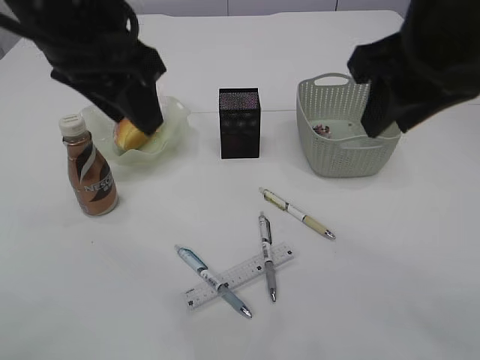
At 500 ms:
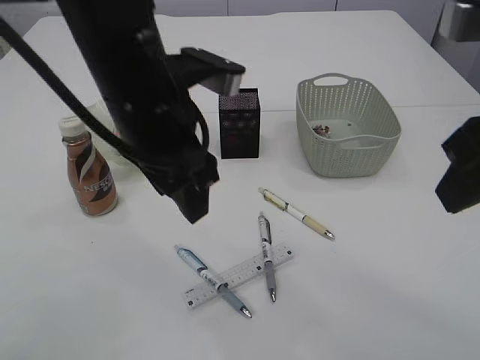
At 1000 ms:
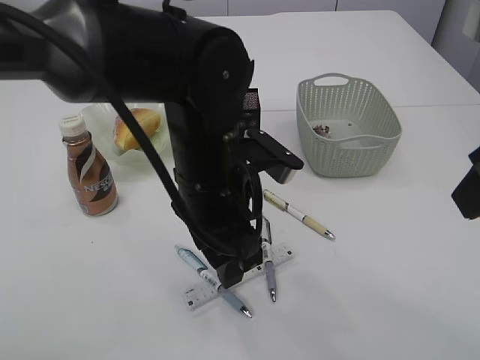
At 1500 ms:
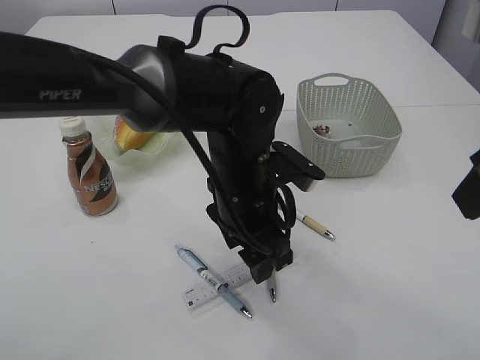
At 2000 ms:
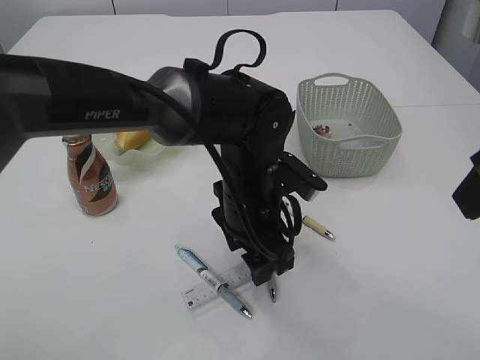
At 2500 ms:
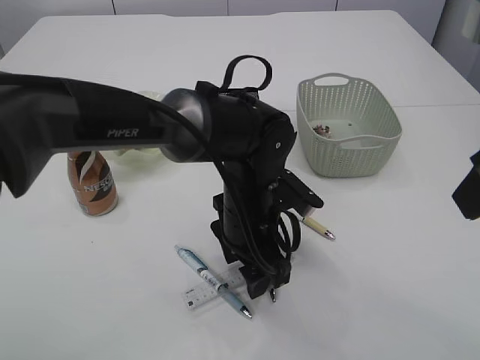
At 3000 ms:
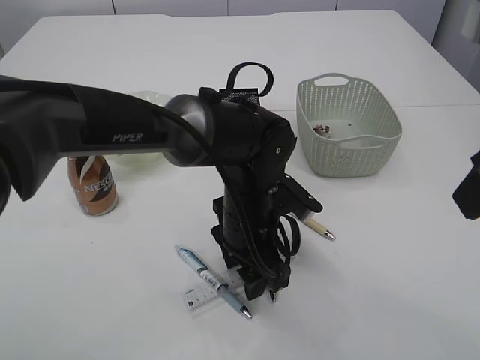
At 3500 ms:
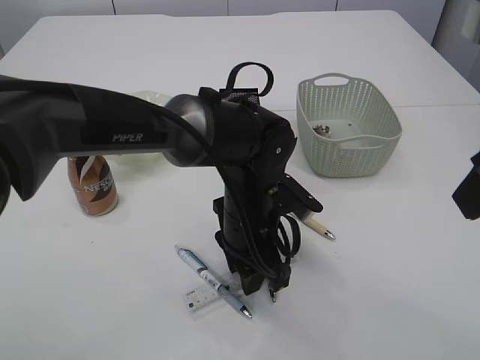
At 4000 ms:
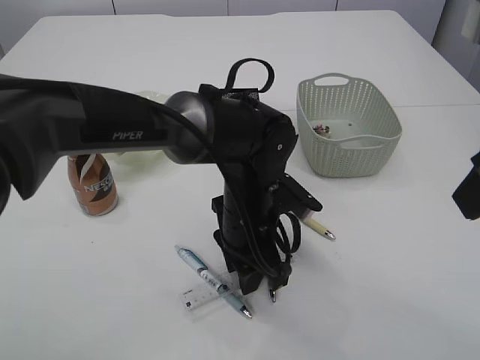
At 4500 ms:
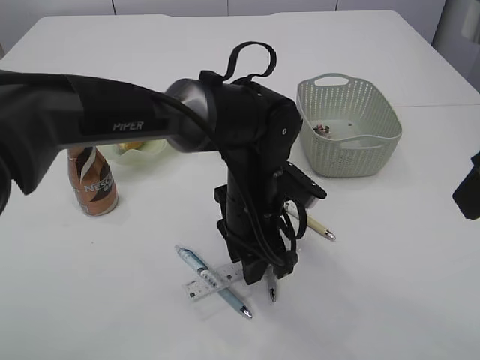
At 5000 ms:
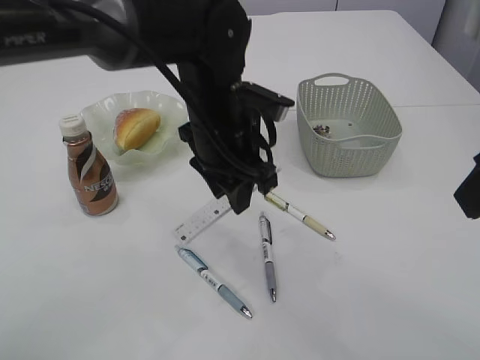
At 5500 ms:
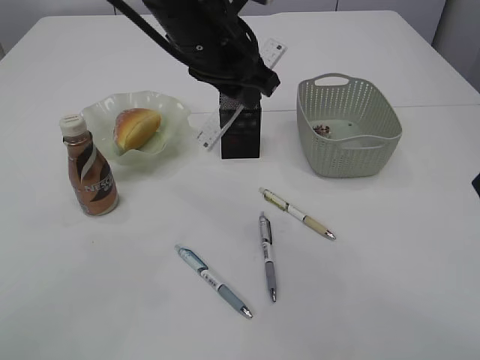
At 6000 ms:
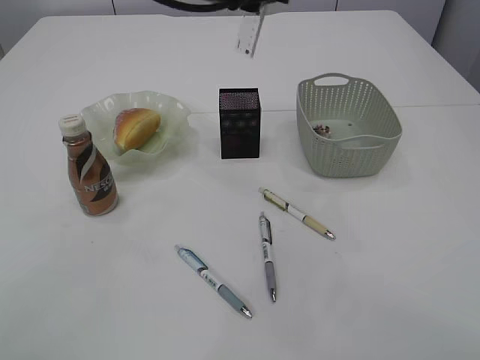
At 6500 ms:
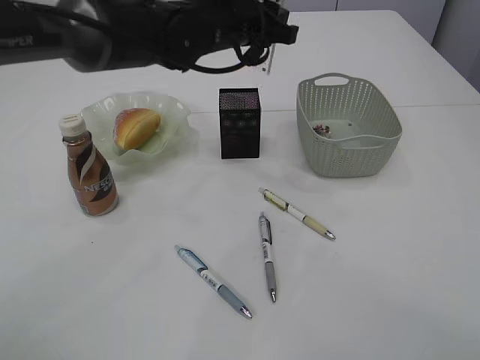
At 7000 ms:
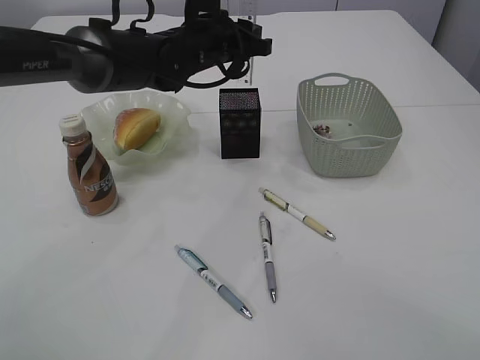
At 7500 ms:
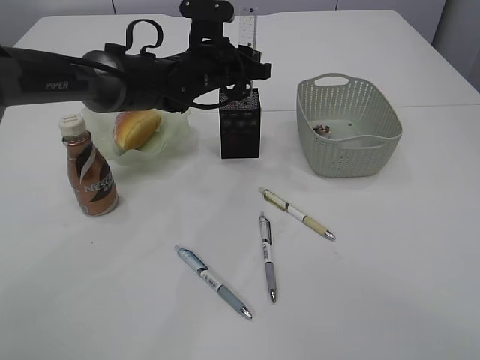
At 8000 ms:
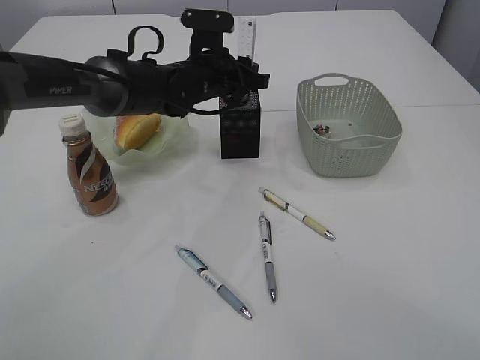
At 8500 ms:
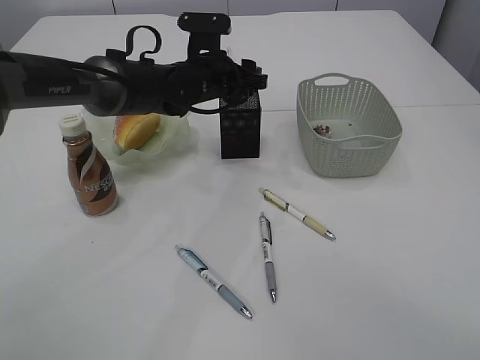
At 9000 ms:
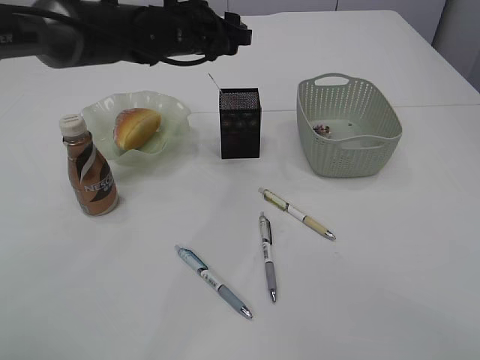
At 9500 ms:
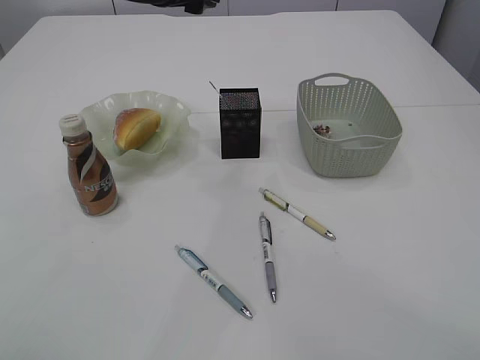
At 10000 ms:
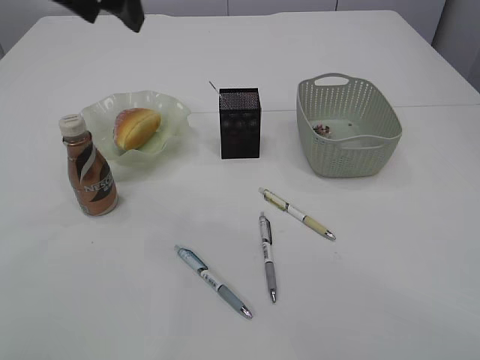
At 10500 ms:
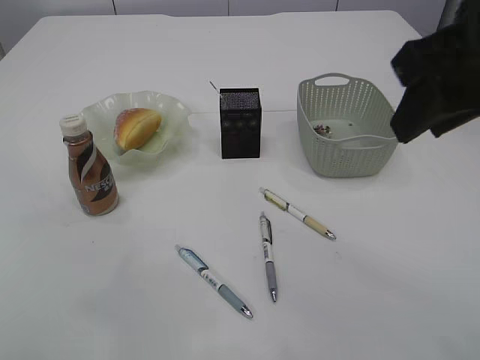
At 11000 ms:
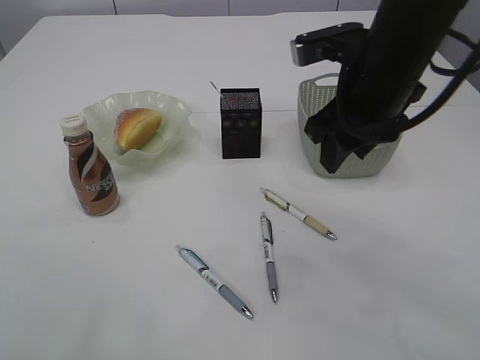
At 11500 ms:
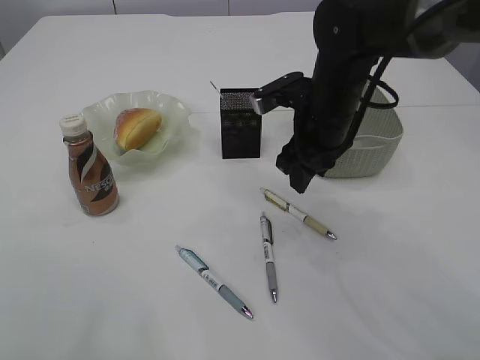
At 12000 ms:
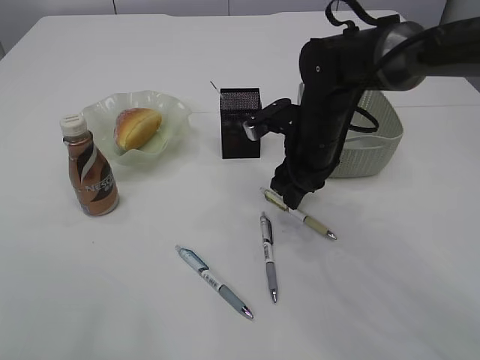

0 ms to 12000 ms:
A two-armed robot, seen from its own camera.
Step, 0 ms to 4500 ms: pick up the ruler.
Step, 5000 ms to 9000 ms: Place the ruler into the pen holder.
0 ms to 2000 ms: The right gripper goes some 10 cm backward. The left gripper shifts some 25 cm downward and to the right.
2000 ms to 4000 ms: The left gripper closes its fingers.
4000 ms to 6000 ms: The left gripper moves upward and forward, roughly 25 cm; the right gripper shifts by about 5 cm.
6000 ms to 8000 ms: The left gripper heads downward and forward, covering some 15 cm.
8000 ms to 10000 ms: The left gripper moves upward, backward and to the left, approximately 25 cm, and opens up.
10000 ms to 12000 ms: The left gripper moves upward, backward and to the left, roughly 20 cm; the right gripper shifts roughly 35 cm forward and downward.

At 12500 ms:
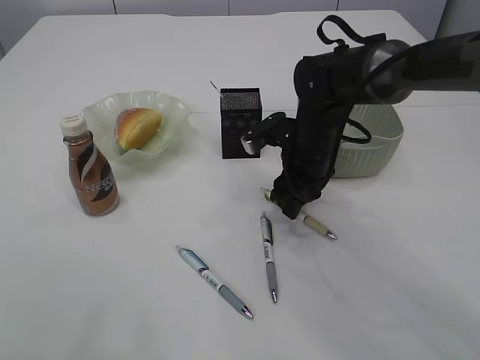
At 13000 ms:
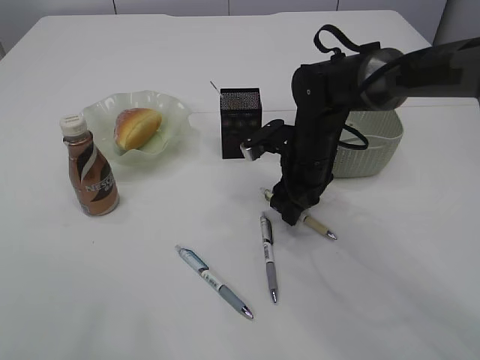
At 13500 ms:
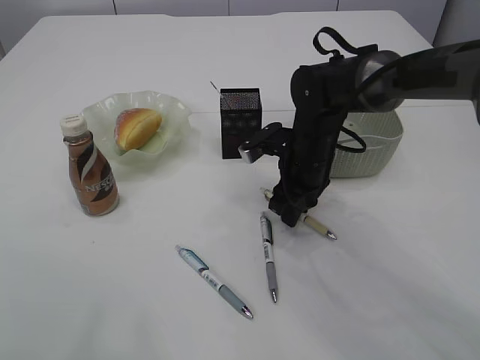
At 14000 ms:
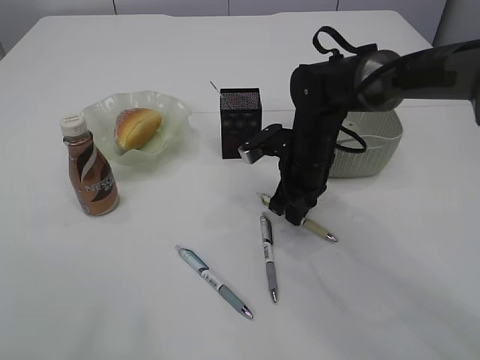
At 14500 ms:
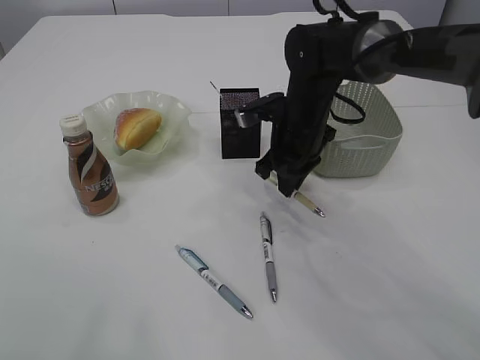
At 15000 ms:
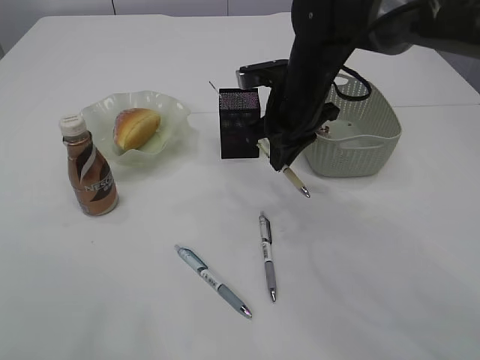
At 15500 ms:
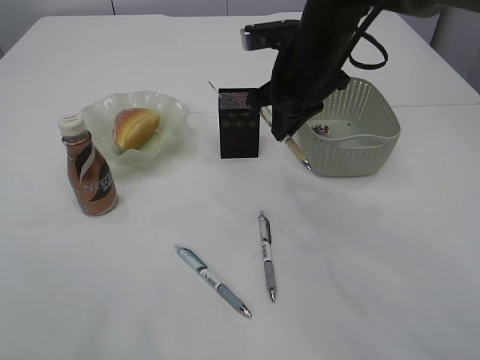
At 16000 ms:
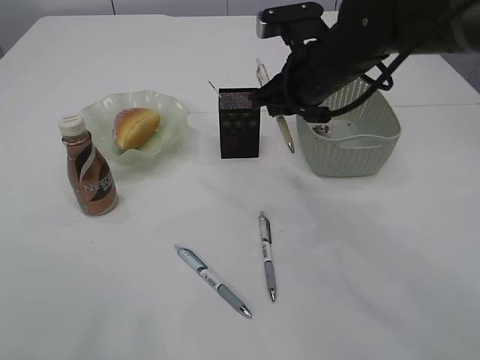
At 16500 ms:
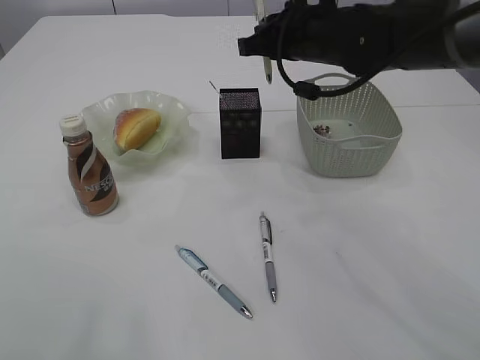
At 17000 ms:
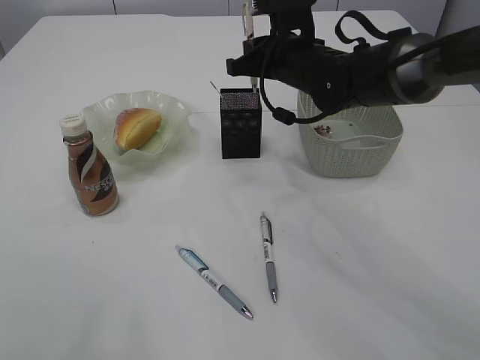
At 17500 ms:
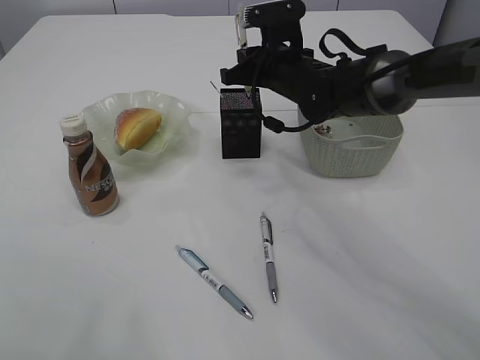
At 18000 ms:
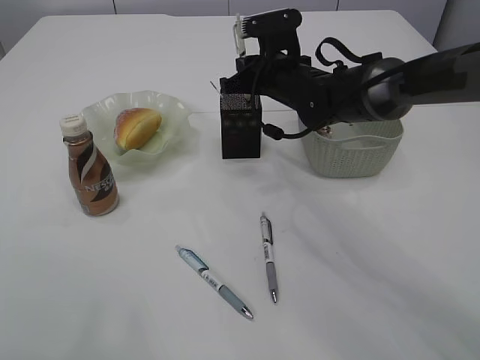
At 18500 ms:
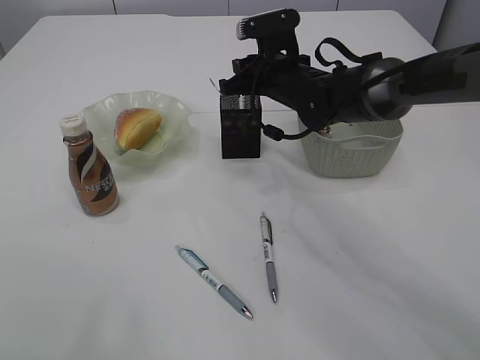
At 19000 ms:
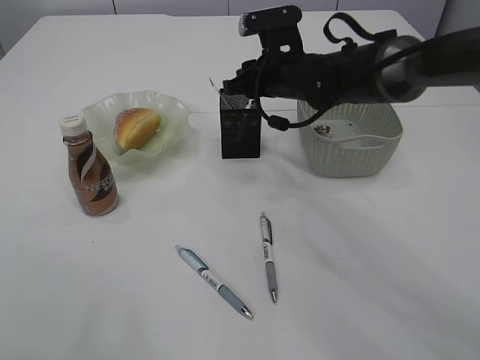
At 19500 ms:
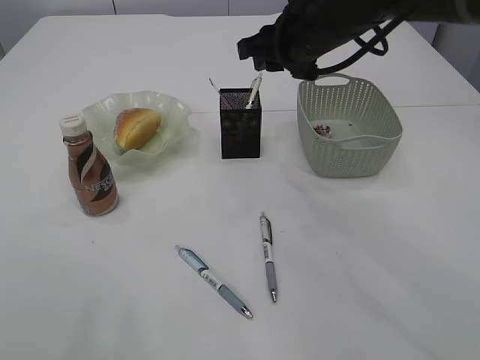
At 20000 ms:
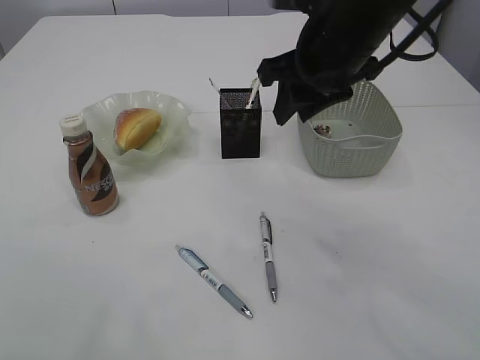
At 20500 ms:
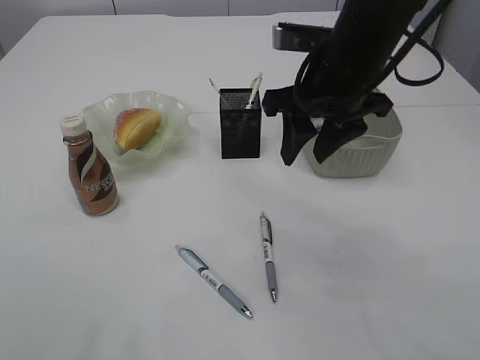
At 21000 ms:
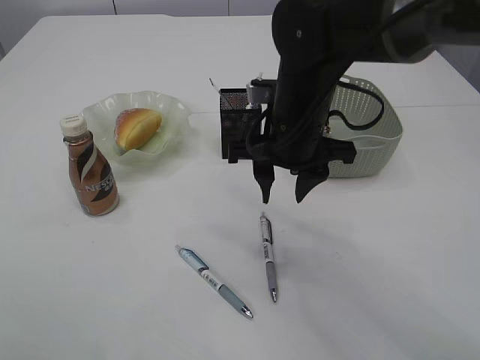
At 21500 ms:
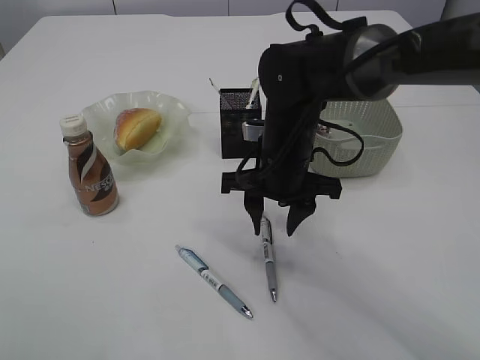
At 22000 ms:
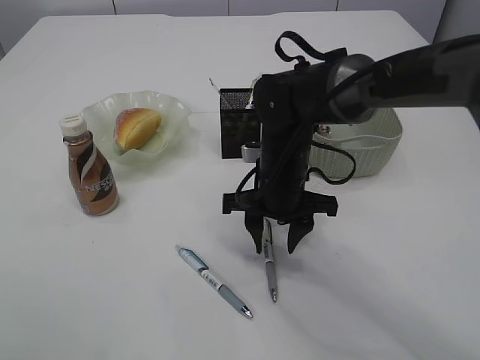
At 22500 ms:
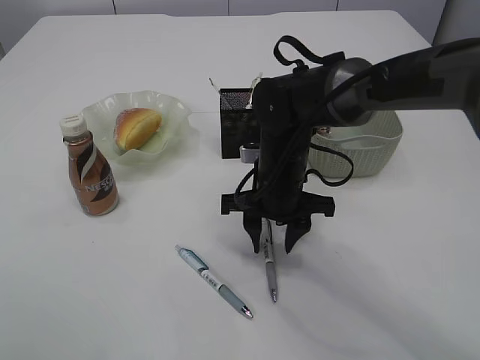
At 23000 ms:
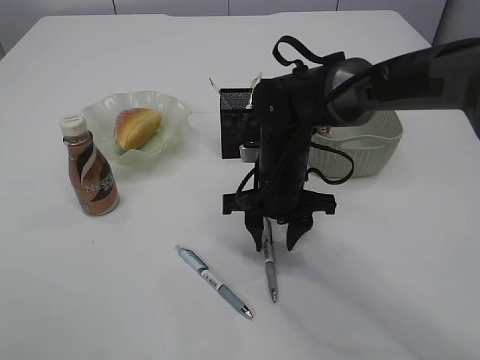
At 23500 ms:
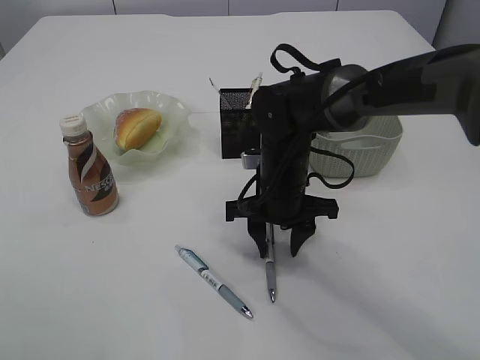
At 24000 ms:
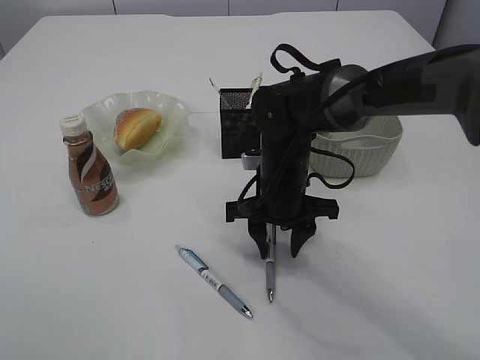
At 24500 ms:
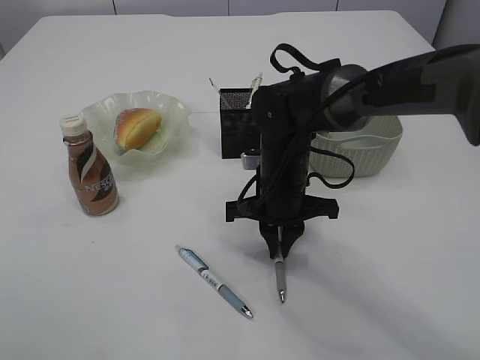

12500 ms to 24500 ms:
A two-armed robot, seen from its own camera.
Step, 12500 ms to 14500 ms: Pick up the pen with right arm.
Step, 15000 ms to 19000 ms: Place the pen into the pen holder.
12500 ms to 14500 ms: The right gripper closes its fingers.
14500 ms to 16500 ms: The right gripper moves upward, approximately 10 cm.
16500 ms to 18500 ms: The right gripper heads downward, covering some 10 cm.
18500 ms to 20500 ms: The right gripper travels backward and upward by about 15 cm.
20500 ms to 22500 ms: The right gripper shifts approximately 15 cm downward.
22500 ms to 24500 ms: The right gripper closes.

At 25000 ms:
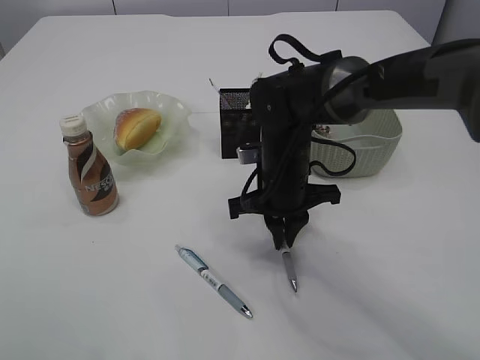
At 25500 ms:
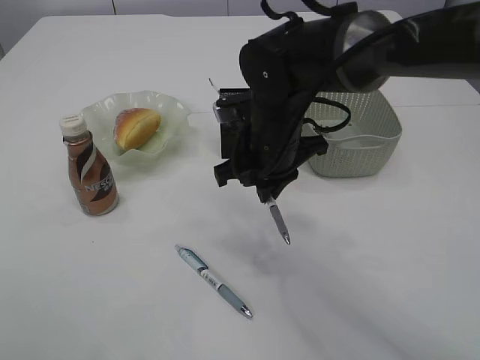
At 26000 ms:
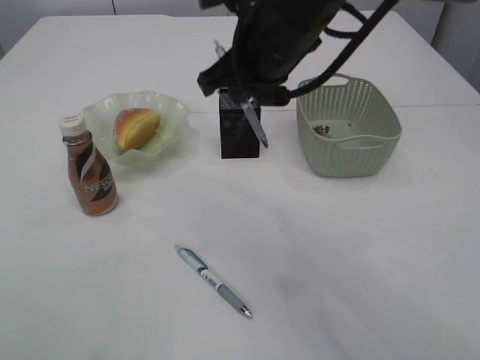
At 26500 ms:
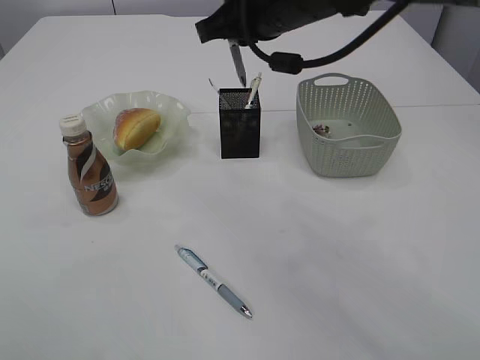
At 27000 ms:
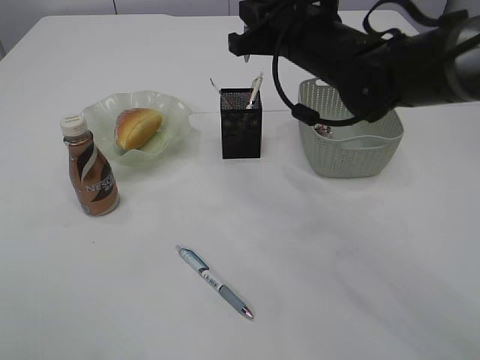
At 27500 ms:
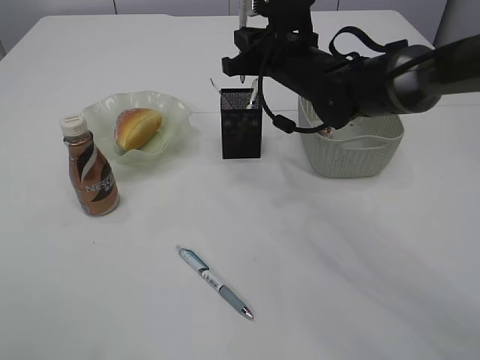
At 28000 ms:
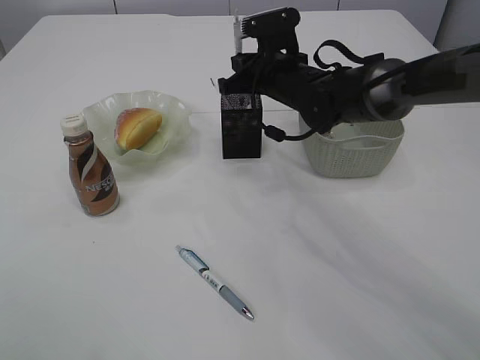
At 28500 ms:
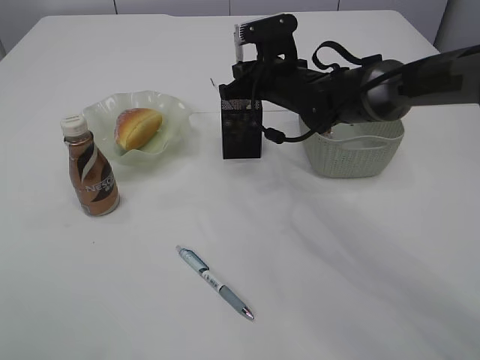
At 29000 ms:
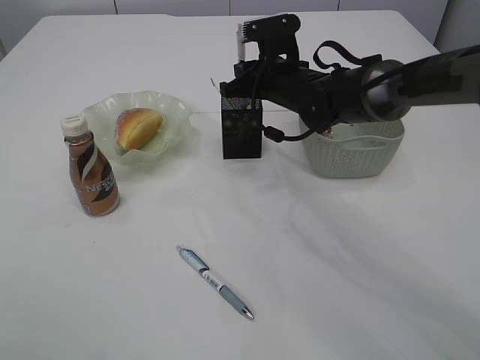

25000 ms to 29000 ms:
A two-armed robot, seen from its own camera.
25000 ms to 27000 ms: The right gripper shifts about 15 cm upward.
27000 ms to 29000 ms: The right gripper goes about 10 cm downward and forward.
